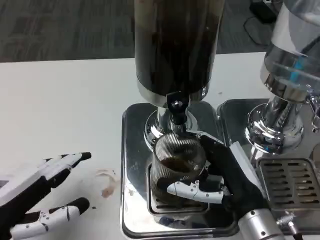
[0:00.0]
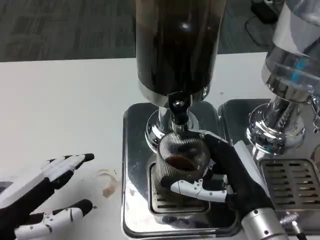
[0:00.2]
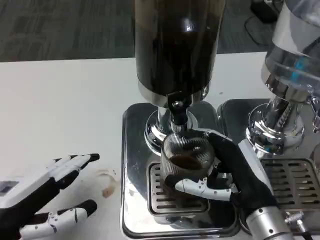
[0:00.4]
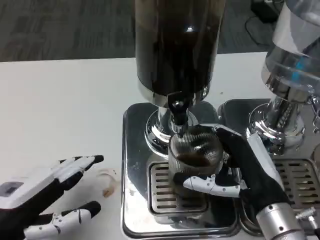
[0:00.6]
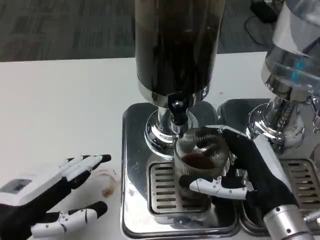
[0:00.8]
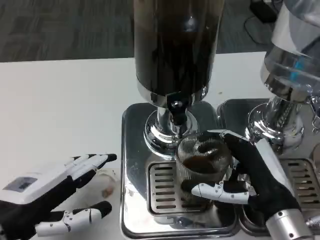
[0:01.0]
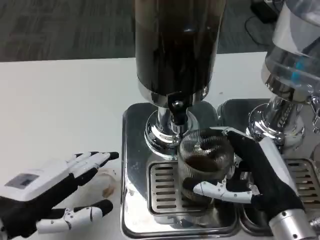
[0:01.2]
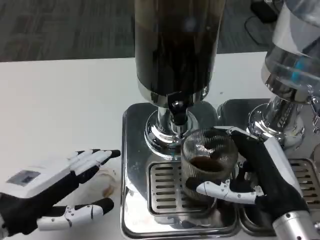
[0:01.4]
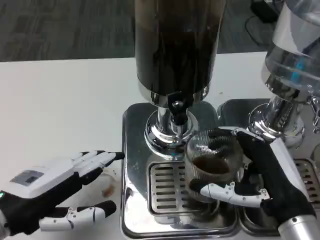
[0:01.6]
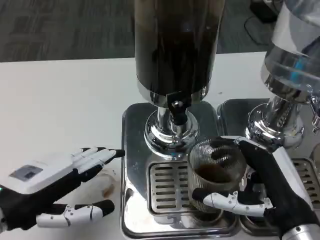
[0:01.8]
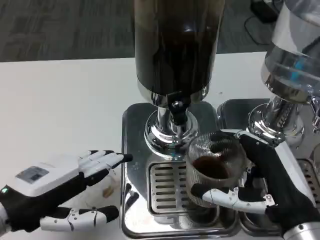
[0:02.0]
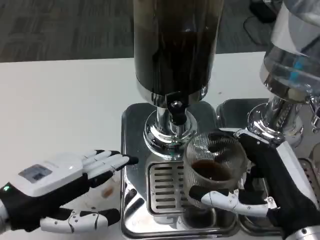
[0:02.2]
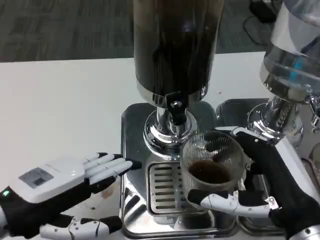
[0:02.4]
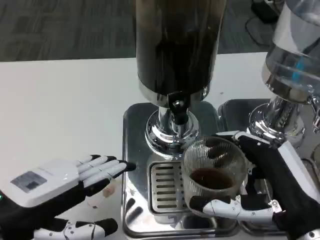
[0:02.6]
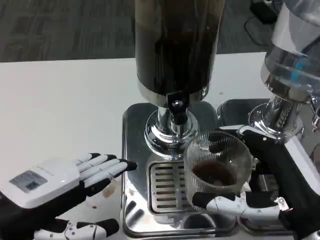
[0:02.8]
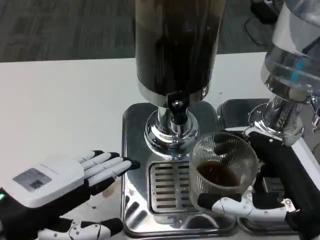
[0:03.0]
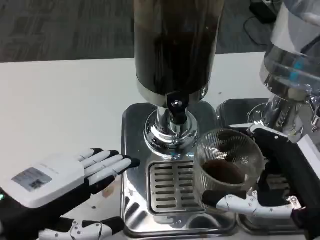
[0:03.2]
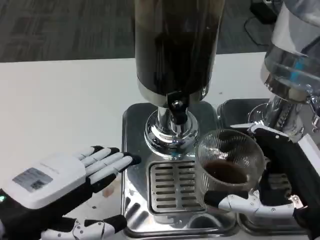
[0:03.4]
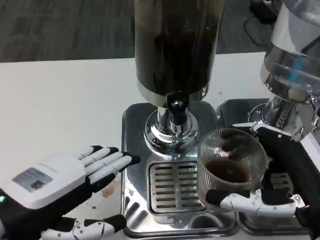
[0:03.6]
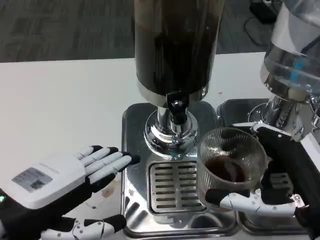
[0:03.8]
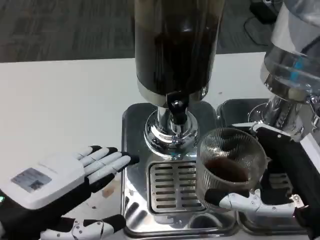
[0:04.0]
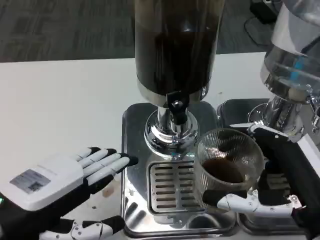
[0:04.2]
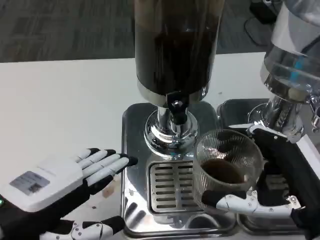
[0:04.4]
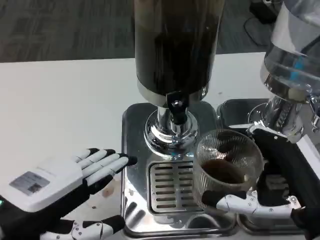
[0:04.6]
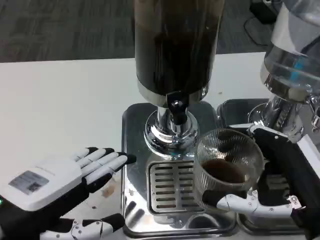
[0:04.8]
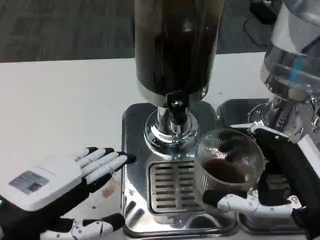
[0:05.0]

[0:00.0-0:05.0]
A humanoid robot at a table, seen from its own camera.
Task of the whole recording: Grasp the cup under the faucet to collect the drink, then remove the cup.
0:00.0 to 0:01.6: The right hand moves about 5 cm.
0:01.6 to 0:03.4: The right hand ends up some 5 cm from where it was.
0:03.4 to 0:05.0: Both hands stay about where they are.

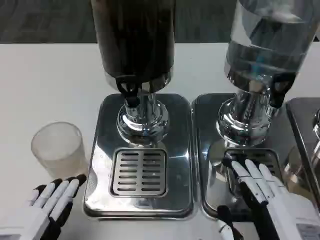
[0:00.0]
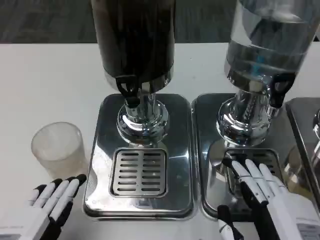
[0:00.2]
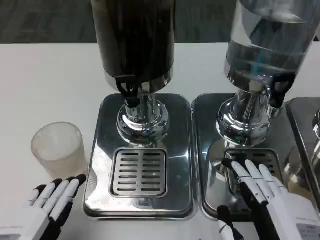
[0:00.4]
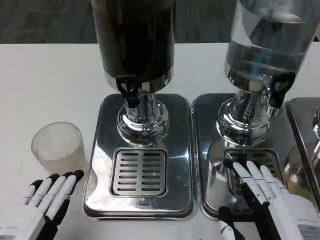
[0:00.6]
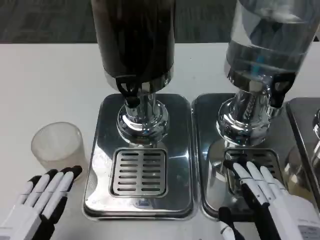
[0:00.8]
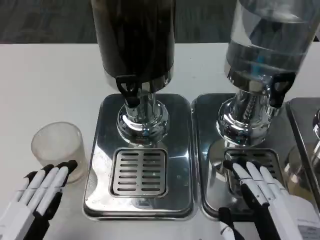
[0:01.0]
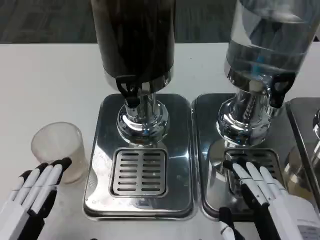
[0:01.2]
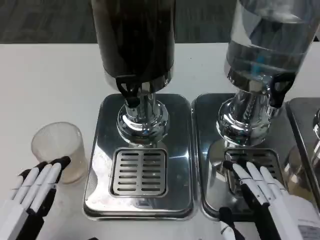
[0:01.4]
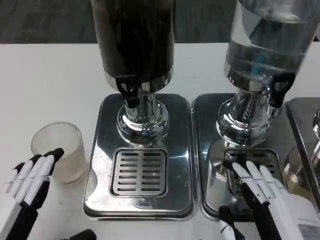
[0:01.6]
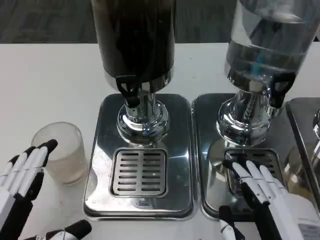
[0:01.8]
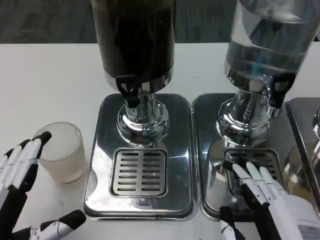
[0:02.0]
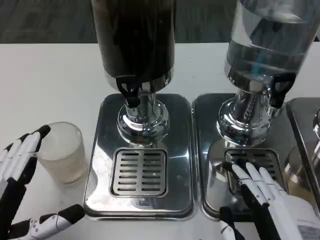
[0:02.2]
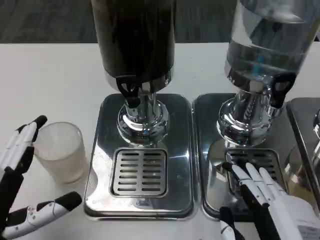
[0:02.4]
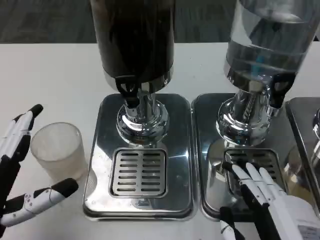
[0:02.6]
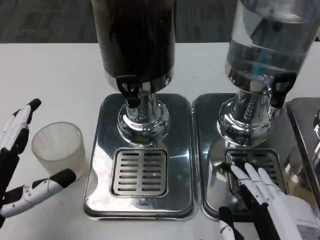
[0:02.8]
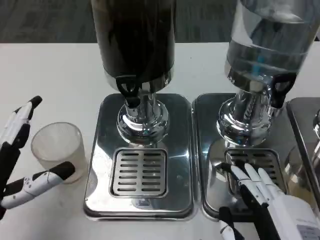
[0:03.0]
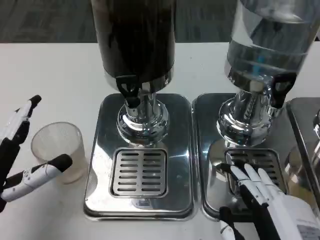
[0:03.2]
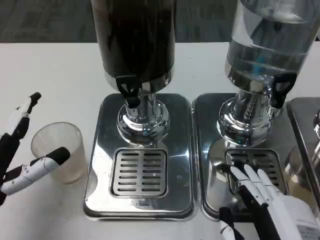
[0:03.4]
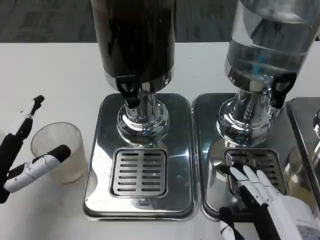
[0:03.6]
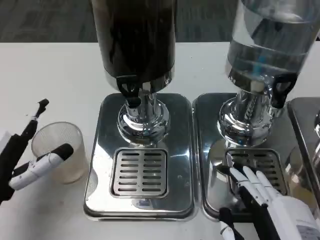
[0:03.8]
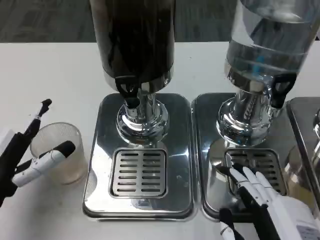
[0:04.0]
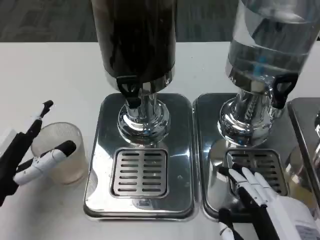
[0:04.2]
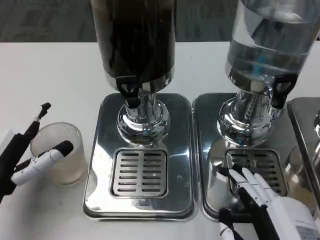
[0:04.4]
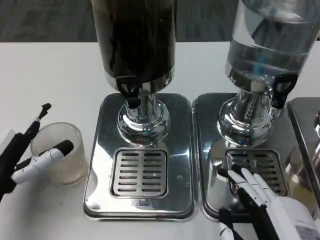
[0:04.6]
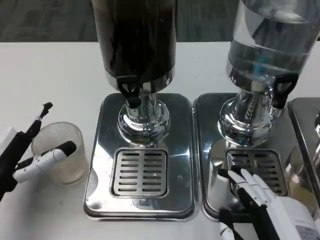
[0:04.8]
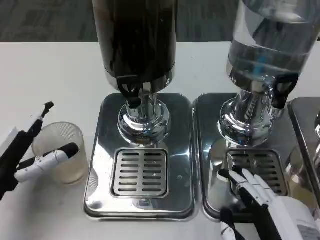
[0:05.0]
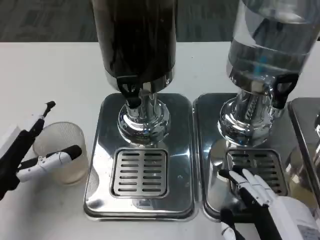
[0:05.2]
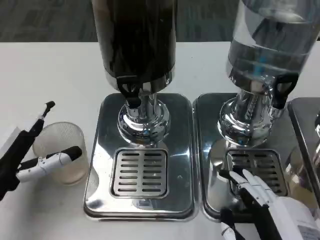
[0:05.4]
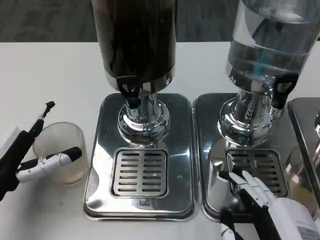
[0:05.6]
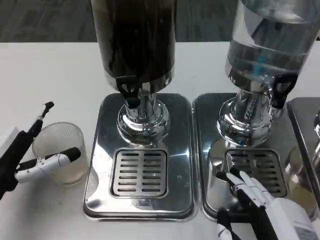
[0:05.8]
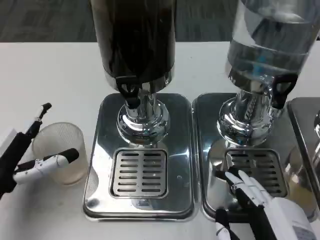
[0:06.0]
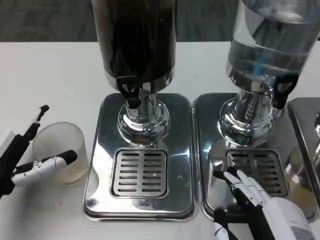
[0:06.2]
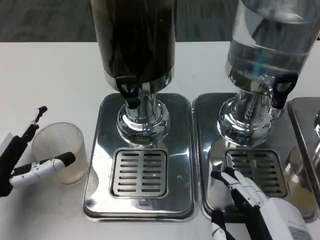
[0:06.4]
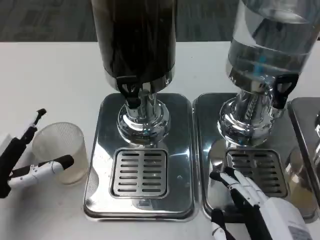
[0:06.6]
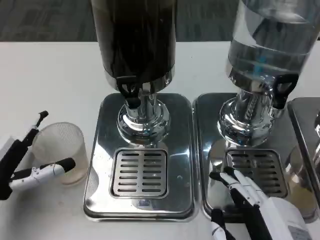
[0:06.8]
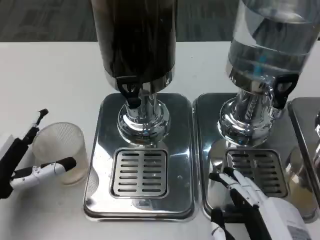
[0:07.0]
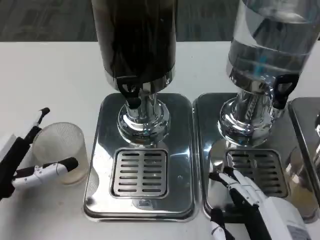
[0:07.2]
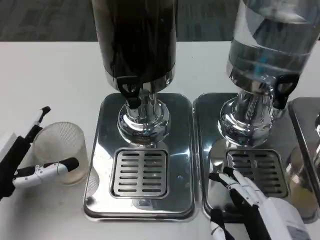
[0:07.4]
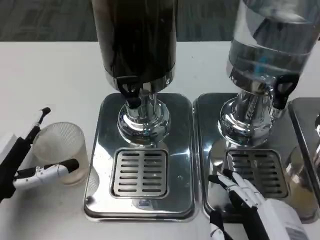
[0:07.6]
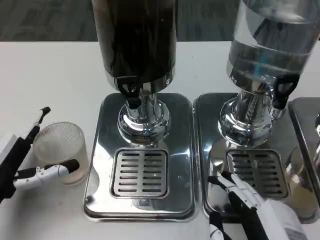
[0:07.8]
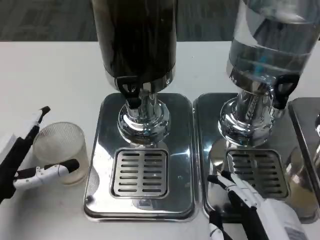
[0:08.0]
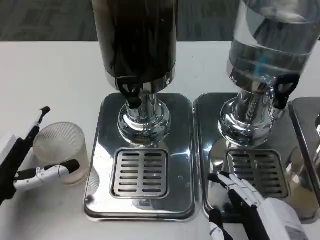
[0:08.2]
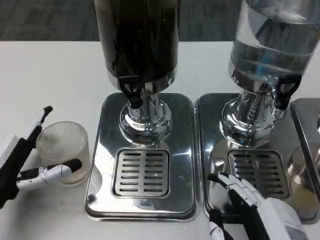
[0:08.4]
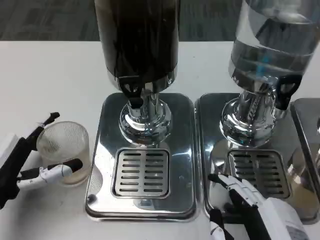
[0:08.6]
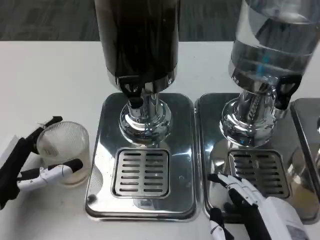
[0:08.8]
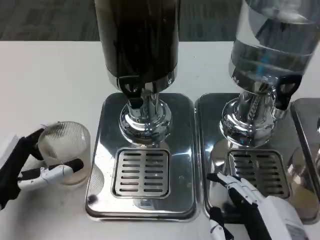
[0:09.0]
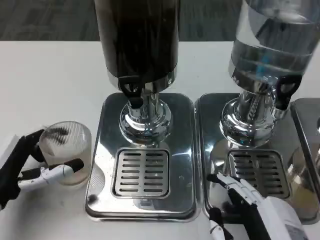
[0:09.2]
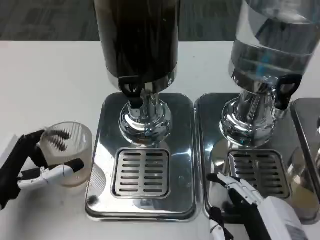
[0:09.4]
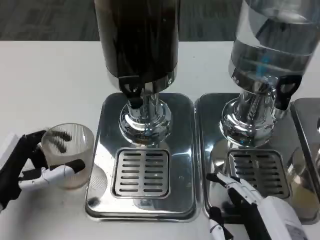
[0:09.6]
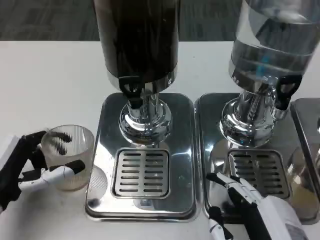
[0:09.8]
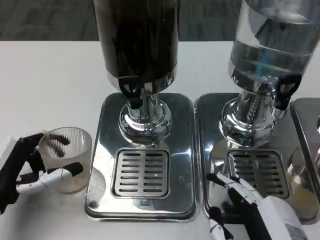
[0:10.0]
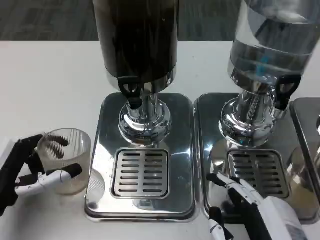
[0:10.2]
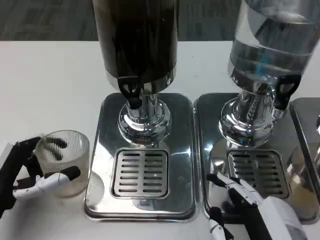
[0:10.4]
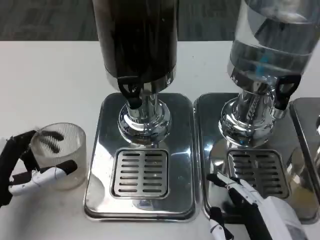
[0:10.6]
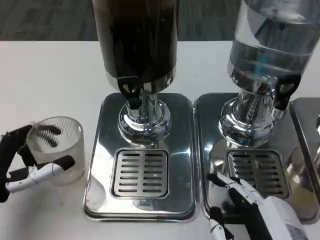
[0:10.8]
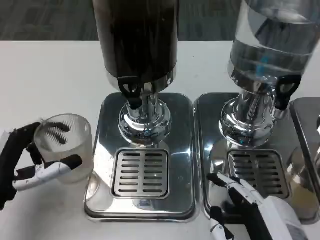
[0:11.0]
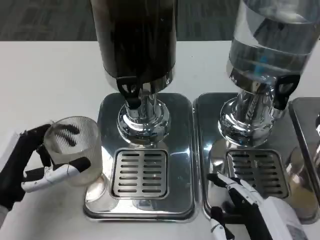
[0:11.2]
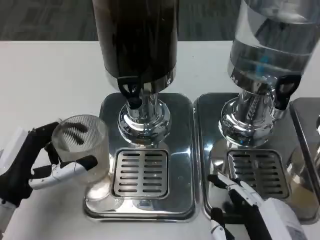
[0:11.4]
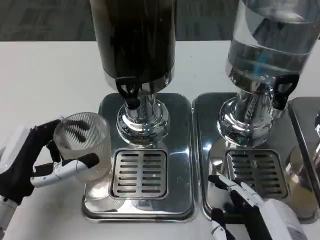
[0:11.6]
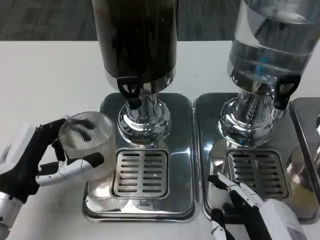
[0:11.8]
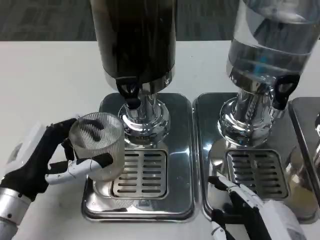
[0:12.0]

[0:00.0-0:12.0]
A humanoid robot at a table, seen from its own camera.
Task of the whole recording: Grasp the cup under the faucet to collect the drink, then remove the cup.
0:00.0 to 0:01.6: There are only small adjustments of the hands.
0:01.6 to 0:03.0: The left hand travels forward by roughly 10 cm.
0:03.0 to 0:04.4: The left hand travels forward by approximately 5 cm.
0:04.4 to 0:06.0: There are only small adjustments of the hands.
0:06.0 to 0:07.6: Both hands stay put.
0:07.6 to 0:10.4: The hands stay close to where they were, moving slightly.

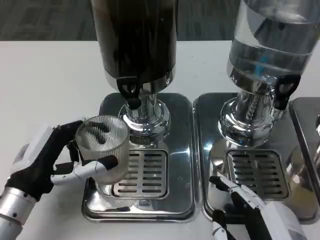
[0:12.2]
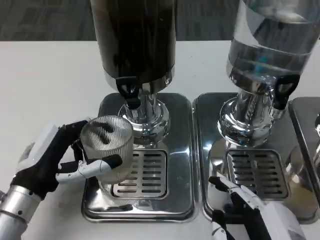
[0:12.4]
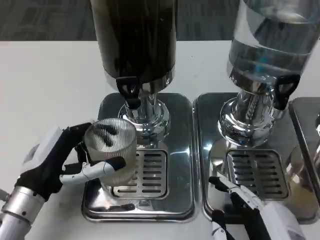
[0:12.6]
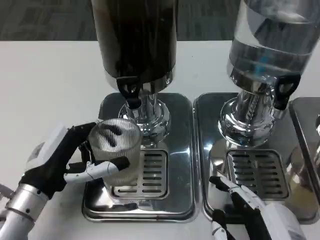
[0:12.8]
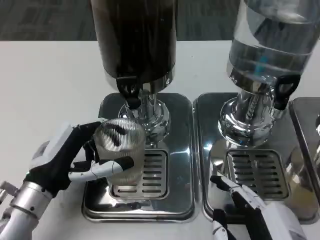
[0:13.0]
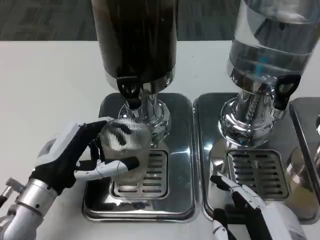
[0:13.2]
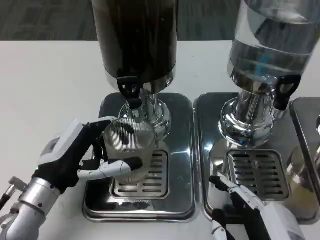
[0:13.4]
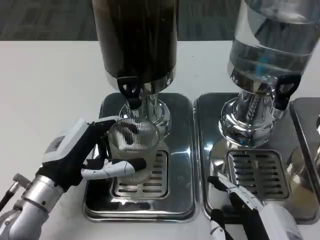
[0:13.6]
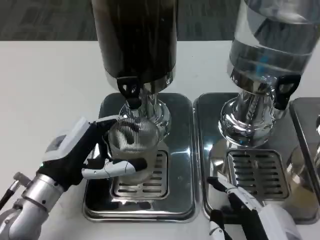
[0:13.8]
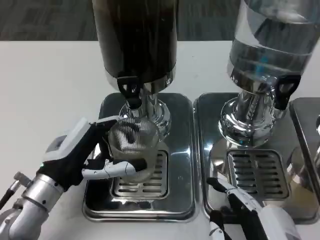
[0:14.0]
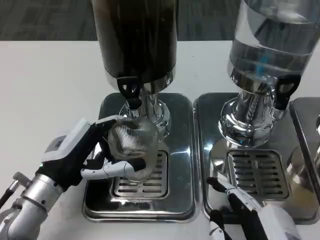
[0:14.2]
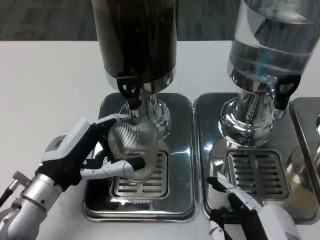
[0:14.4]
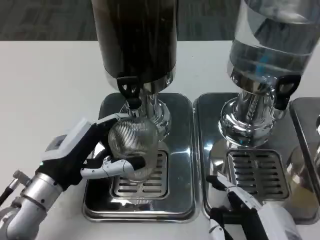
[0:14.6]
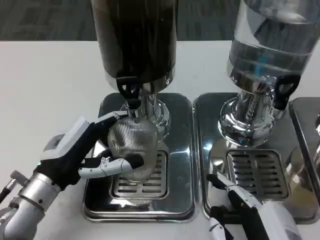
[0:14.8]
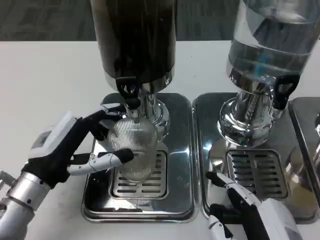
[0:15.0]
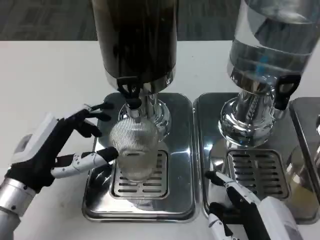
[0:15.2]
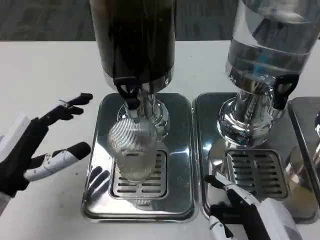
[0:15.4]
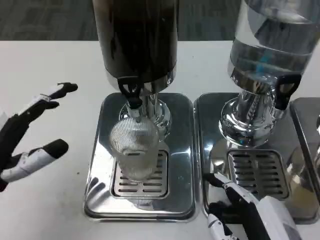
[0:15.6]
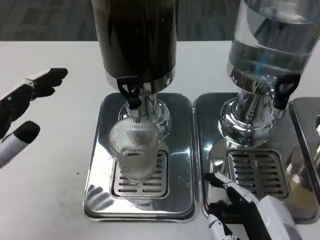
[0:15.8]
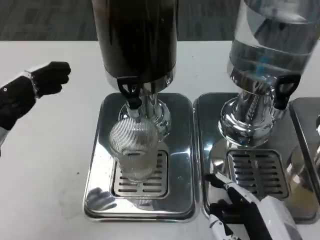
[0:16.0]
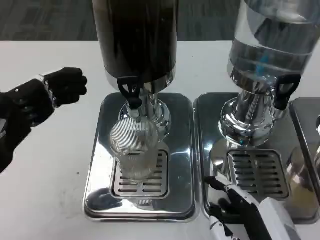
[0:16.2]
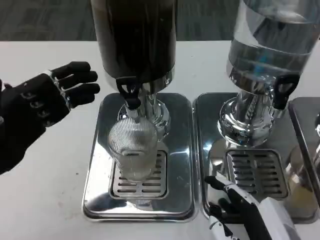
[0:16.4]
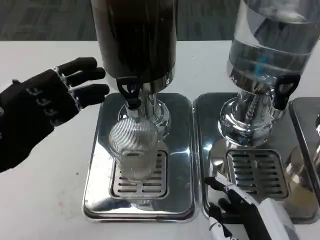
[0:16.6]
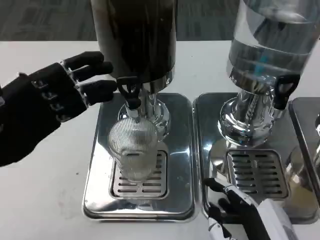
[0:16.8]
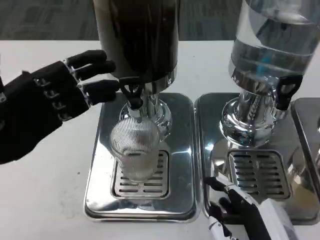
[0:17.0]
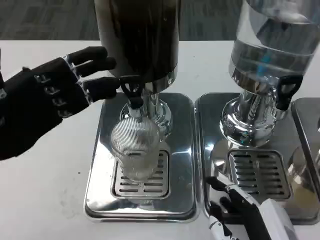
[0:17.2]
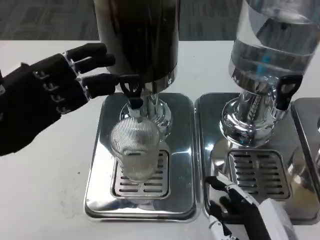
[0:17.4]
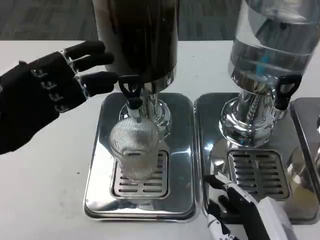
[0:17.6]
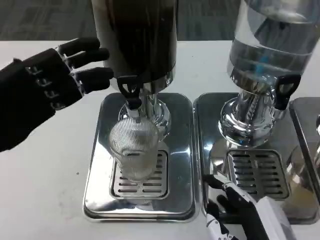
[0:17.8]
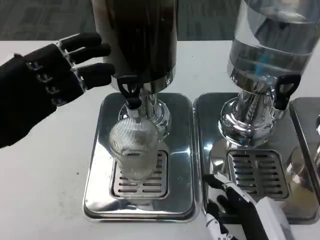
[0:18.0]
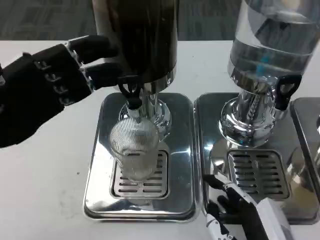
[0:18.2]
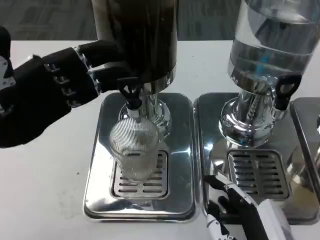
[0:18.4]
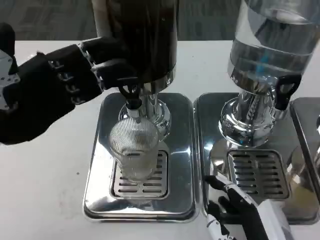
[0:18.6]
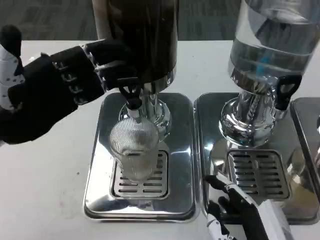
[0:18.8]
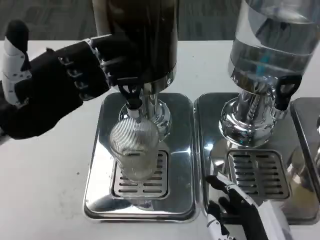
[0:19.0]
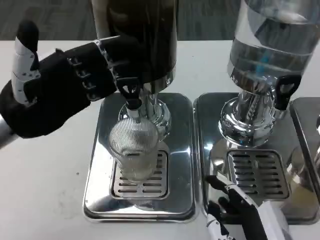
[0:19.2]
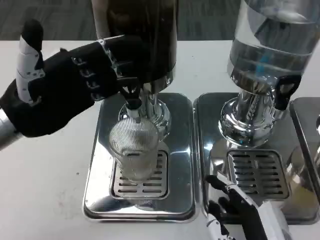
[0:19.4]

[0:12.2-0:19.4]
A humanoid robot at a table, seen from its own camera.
Task of the whole recording: Grasp the cup under the faucet to collect the drink, then remove the cup.
0:12.2 to 0:15.0: There are only small adjustments of the hands.
0:15.0 to 0:16.6: The left hand travels upward and to the left by about 10 cm.
0:16.6 to 0:18.0: The hands stay close to where they were, moving slightly.
0:18.0 to 0:19.4: The left hand changes place by approximately 5 cm.
